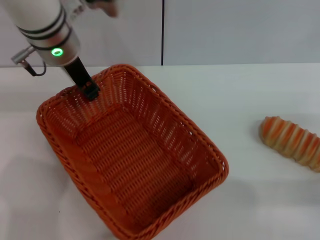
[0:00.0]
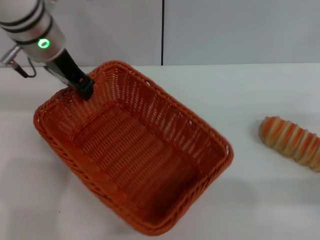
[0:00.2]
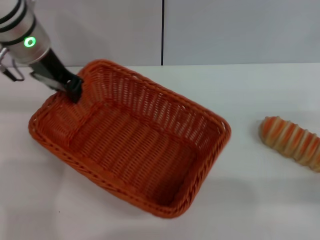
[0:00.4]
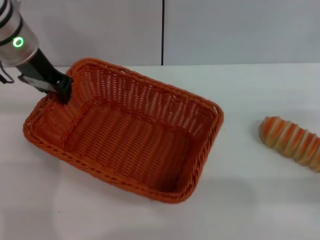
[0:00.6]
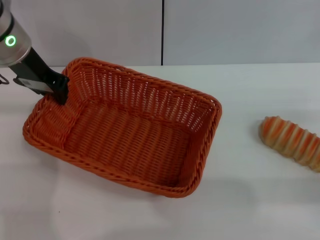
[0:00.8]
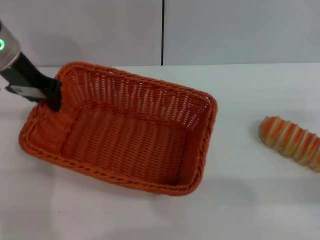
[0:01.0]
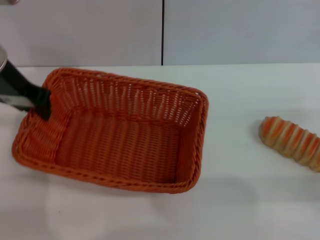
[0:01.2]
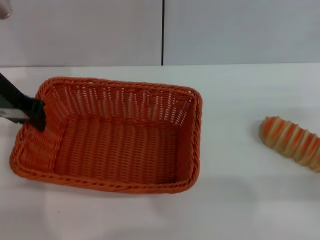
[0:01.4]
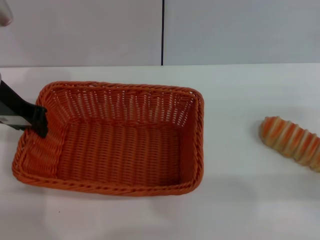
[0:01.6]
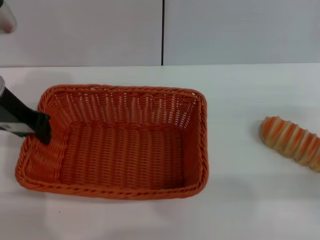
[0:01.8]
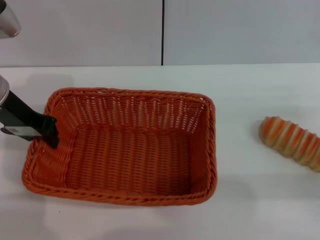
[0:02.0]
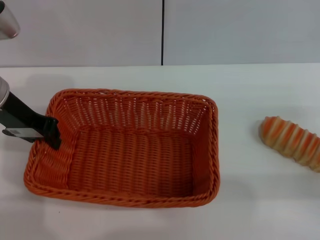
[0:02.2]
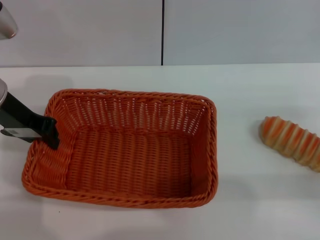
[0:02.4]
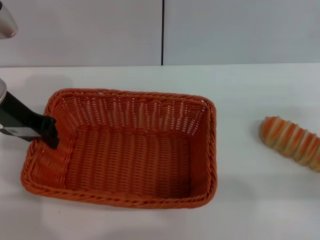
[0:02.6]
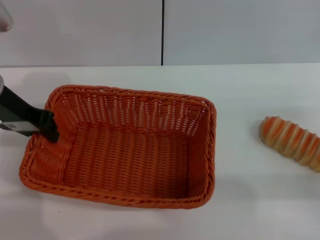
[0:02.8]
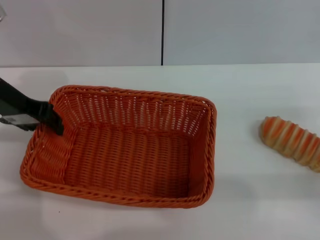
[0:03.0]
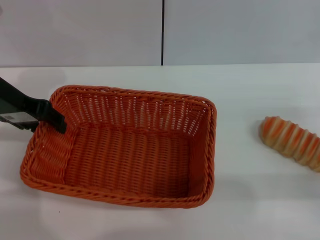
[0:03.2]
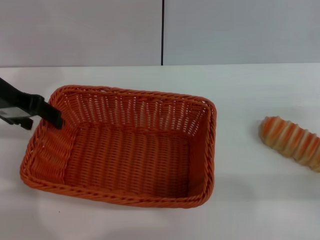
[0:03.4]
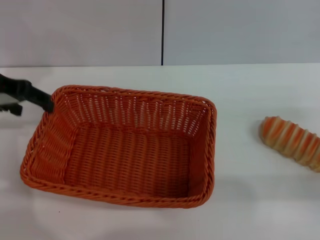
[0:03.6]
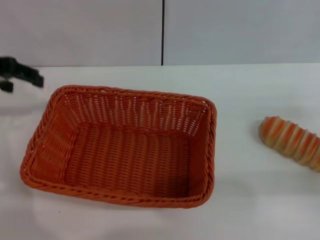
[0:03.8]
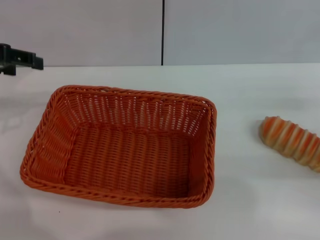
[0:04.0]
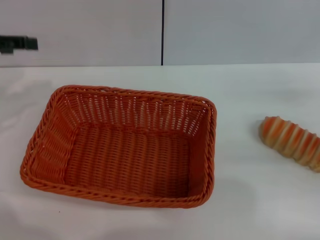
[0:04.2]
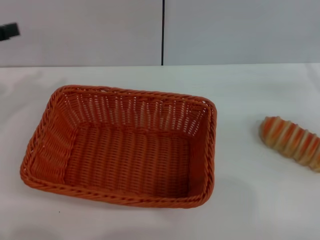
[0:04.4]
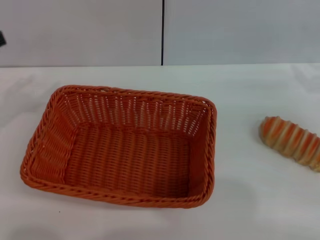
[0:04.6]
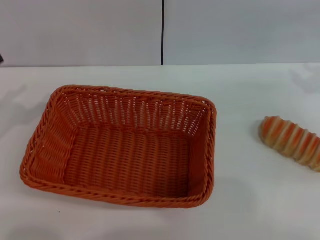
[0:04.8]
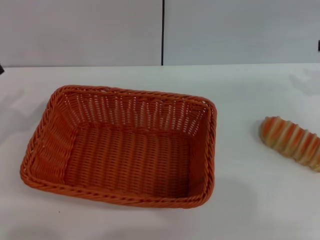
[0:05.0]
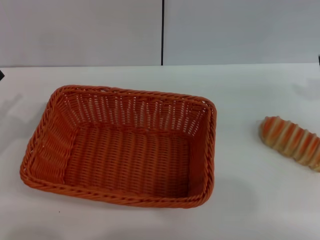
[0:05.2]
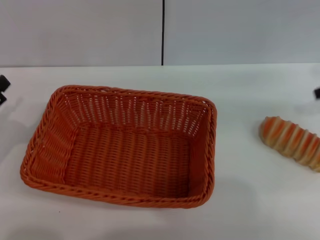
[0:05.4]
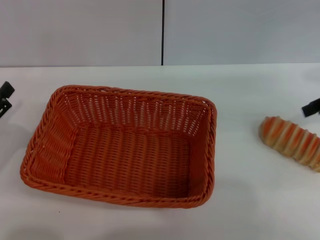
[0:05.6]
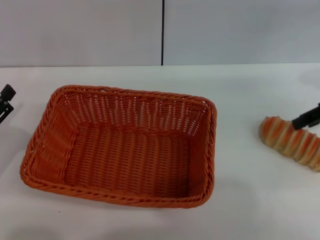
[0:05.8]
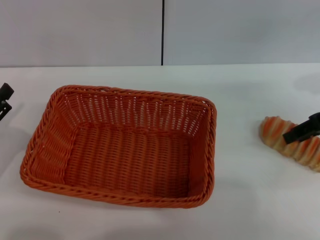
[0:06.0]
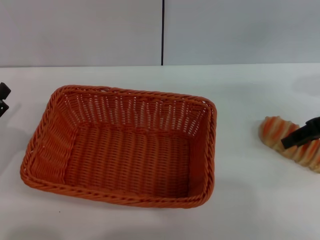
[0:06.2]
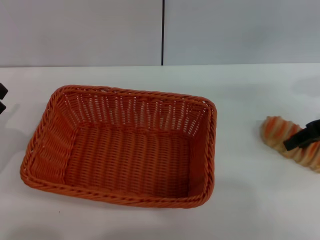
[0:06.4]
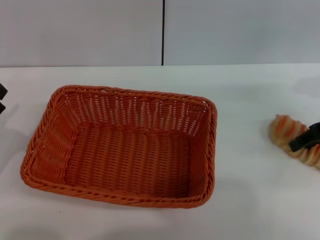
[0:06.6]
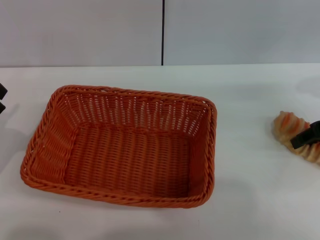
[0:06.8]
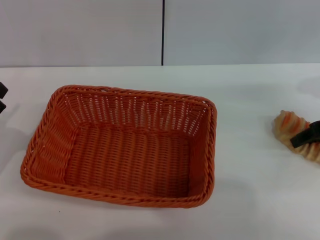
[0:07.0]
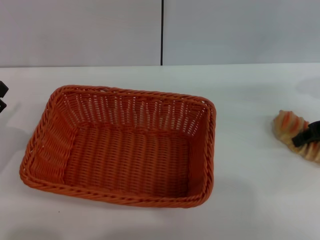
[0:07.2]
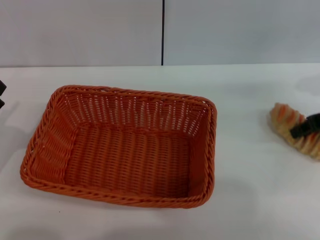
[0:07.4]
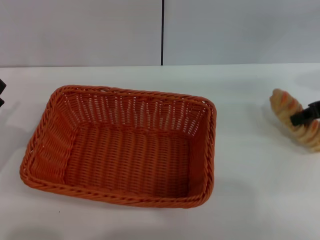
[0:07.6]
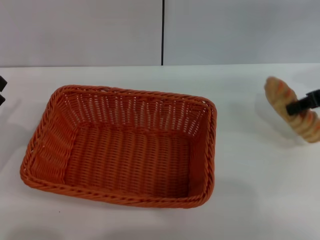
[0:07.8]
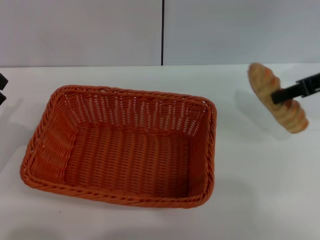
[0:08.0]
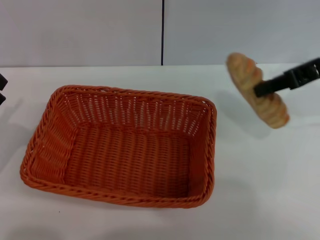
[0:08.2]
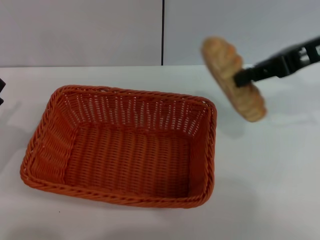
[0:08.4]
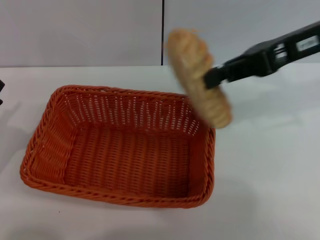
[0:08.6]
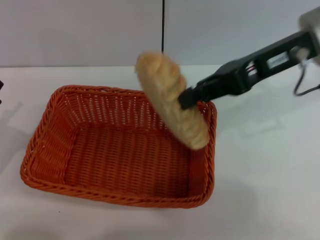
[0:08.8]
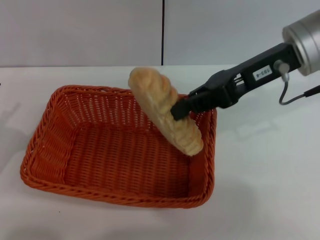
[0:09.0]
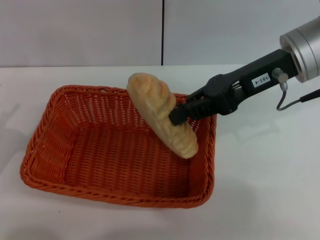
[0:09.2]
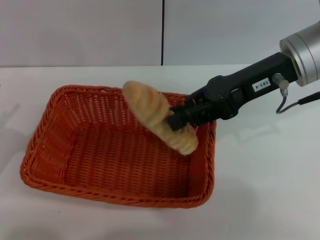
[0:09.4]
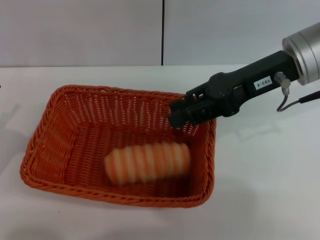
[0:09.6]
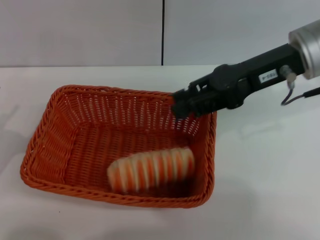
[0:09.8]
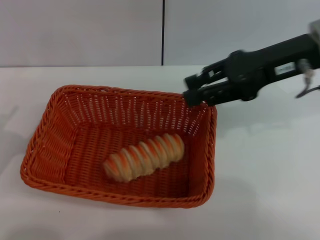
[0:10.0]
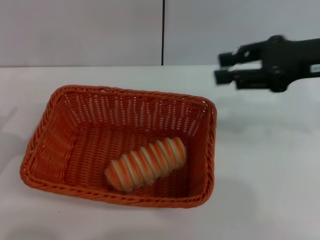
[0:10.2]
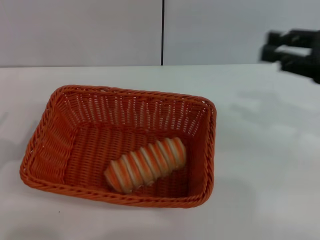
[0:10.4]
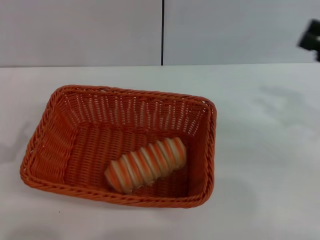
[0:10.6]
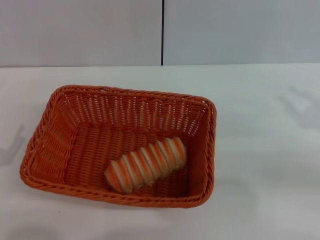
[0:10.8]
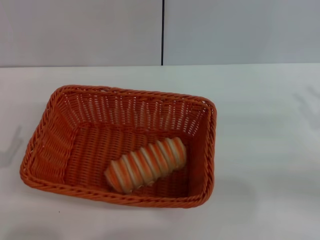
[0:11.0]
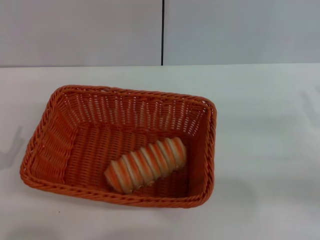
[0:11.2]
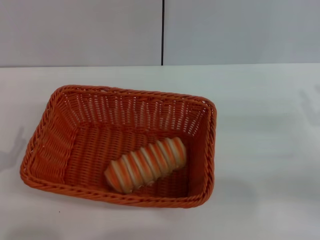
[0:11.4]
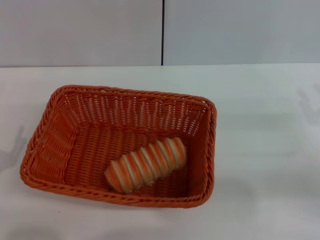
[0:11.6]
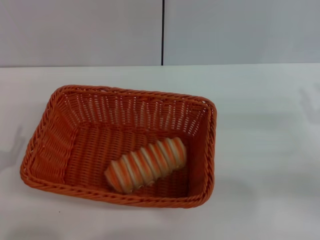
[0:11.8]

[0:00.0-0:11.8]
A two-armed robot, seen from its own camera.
Step, 0:00.8 to 0:03.6: Place the light basket in the center of view with the left gripper.
Step, 0:04.0 to 0:08.0: Pick up the long bread with the right gripper.
Step, 0:08.4 to 0:10.0: Place the long bread into the light basket with the right gripper.
0:00.0 to 0:01.4: The left gripper shifts roughly 10 cm to the left.
0:01.4 to 0:03.0: The grippers stay close to where they were, moving slightly.
0:03.0 to 0:04.4: The left gripper is displaced to the left by about 10 cm, and opens. The right gripper shifts roughly 10 cm forward and upward.
0:04.4 to 0:06.0: The right gripper shifts about 5 cm to the left, while the left gripper travels downward and backward by approximately 20 cm.
0:06.0 to 0:07.4: The right gripper closes.
0:07.4 to 0:08.8: The right gripper moves to the left and upward, about 15 cm, and closes.
0:08.8 to 0:10.4: The right gripper moves to the right and backward, roughly 15 cm, and opens its fingers.
0:10.4 to 0:11.8: The right gripper shifts about 15 cm downward.
